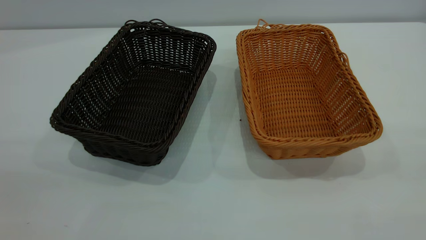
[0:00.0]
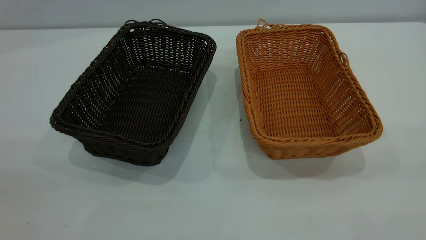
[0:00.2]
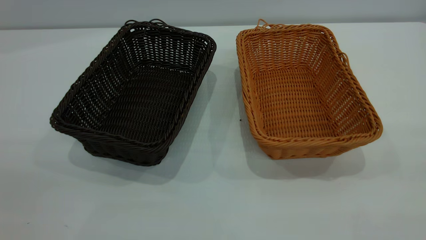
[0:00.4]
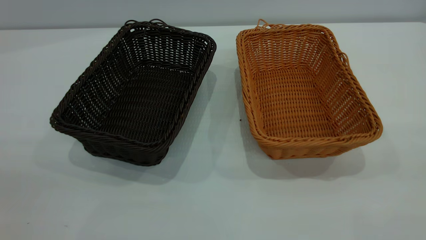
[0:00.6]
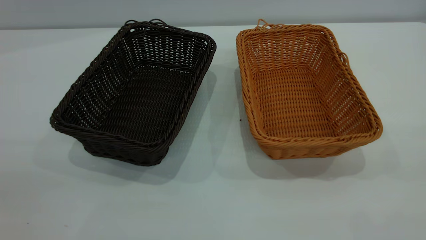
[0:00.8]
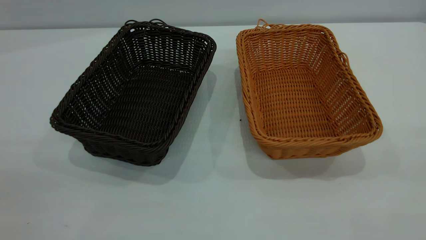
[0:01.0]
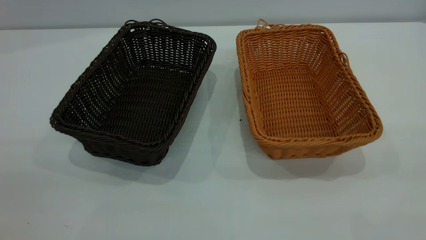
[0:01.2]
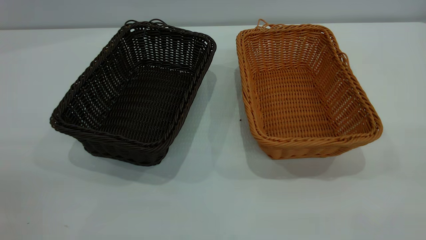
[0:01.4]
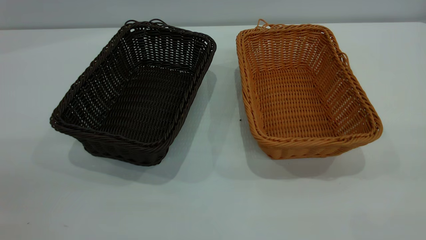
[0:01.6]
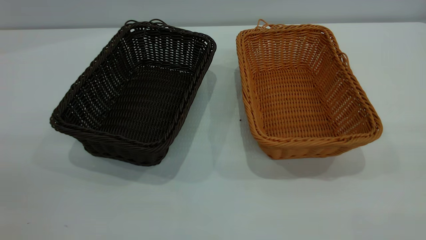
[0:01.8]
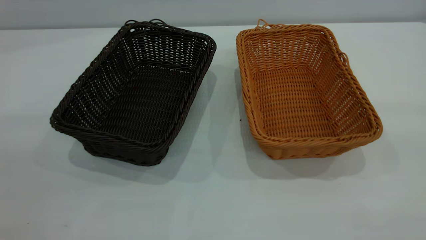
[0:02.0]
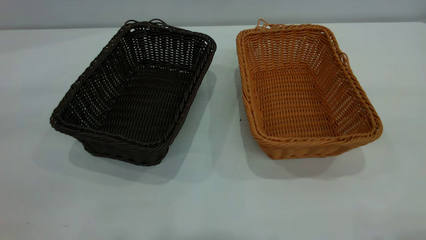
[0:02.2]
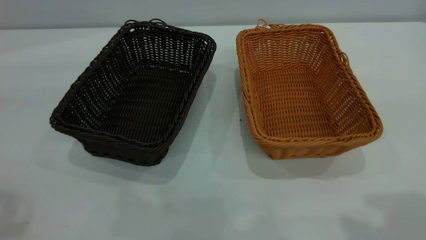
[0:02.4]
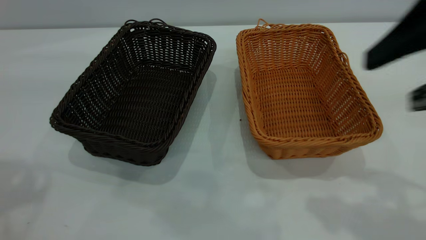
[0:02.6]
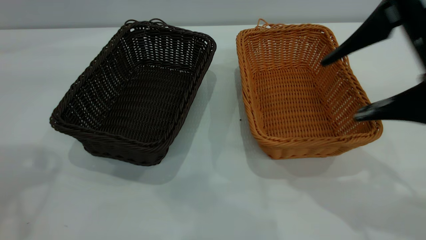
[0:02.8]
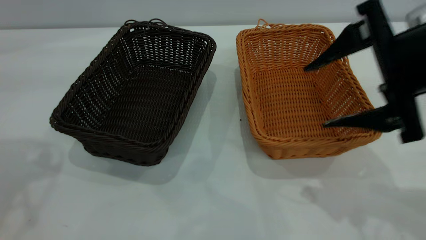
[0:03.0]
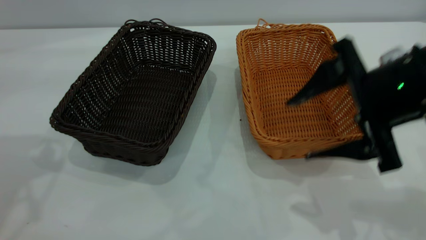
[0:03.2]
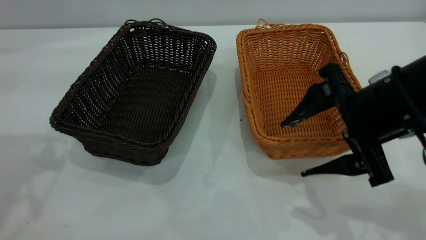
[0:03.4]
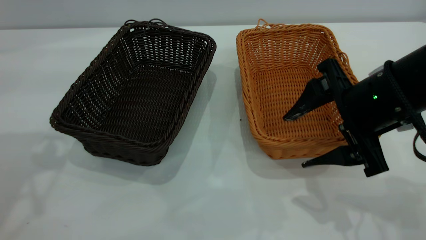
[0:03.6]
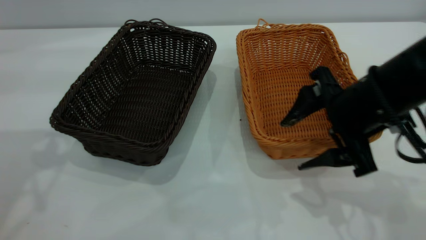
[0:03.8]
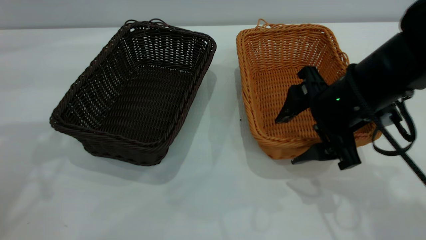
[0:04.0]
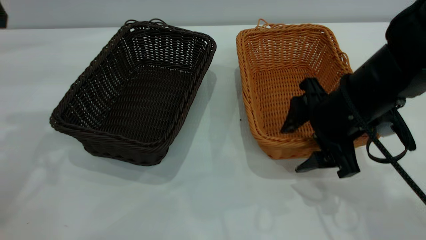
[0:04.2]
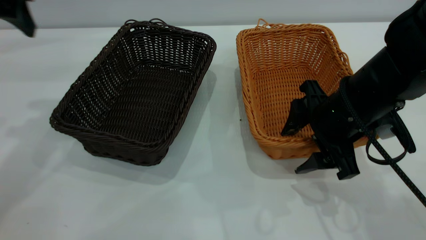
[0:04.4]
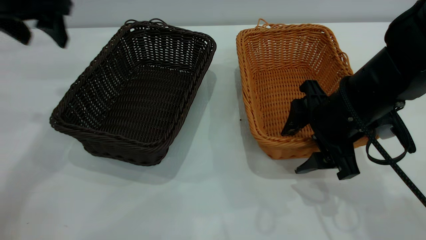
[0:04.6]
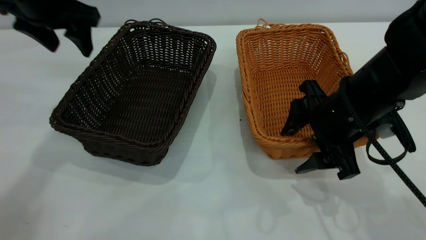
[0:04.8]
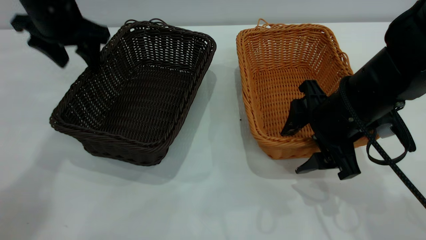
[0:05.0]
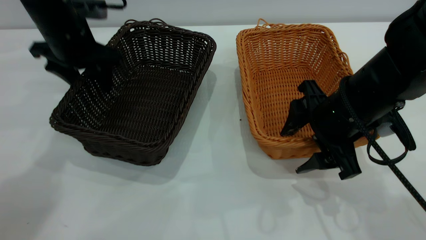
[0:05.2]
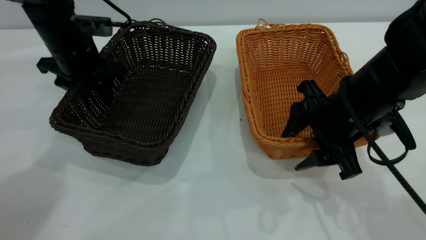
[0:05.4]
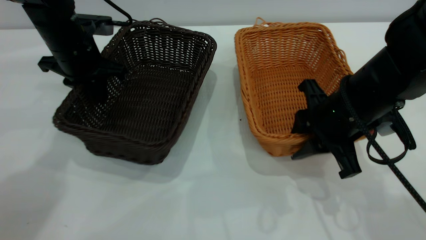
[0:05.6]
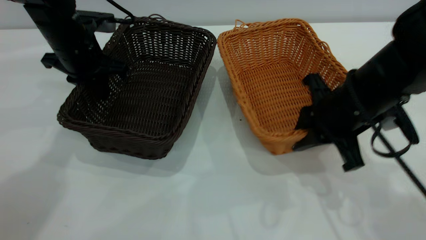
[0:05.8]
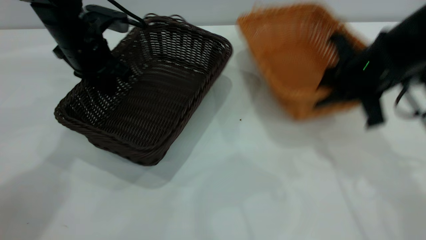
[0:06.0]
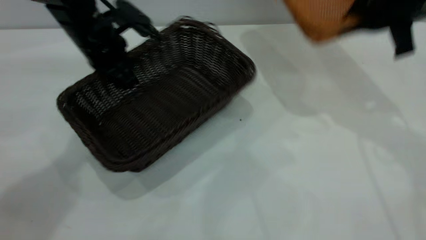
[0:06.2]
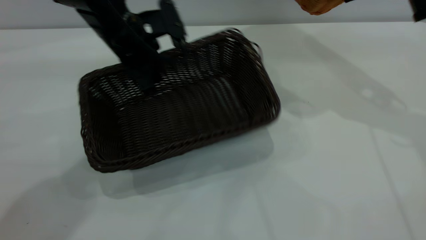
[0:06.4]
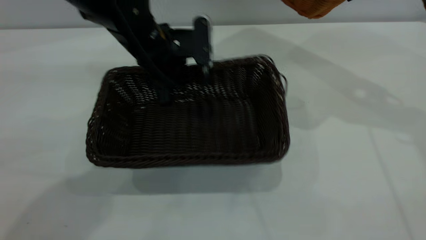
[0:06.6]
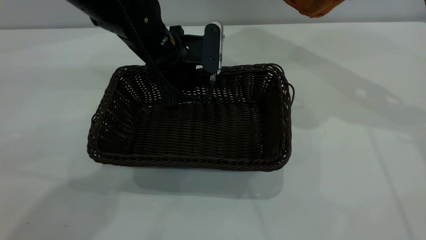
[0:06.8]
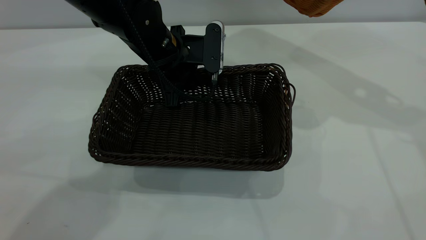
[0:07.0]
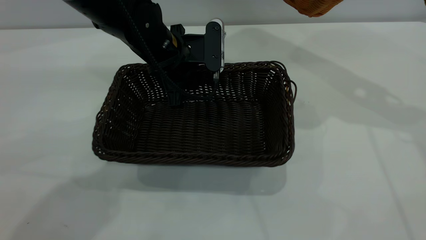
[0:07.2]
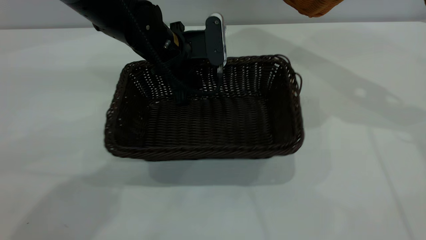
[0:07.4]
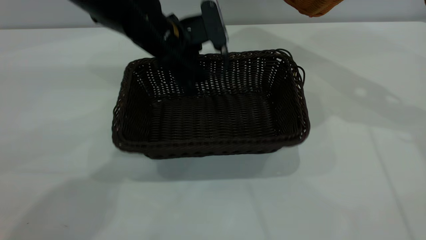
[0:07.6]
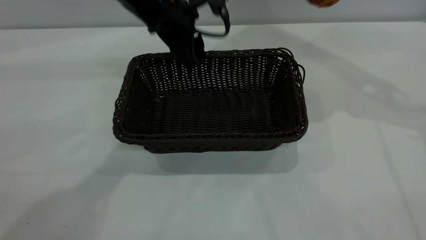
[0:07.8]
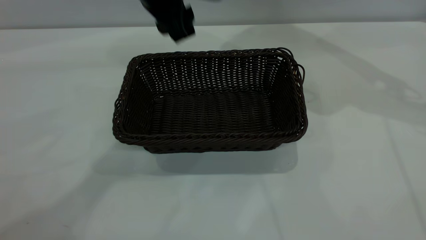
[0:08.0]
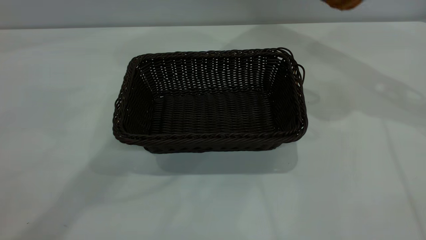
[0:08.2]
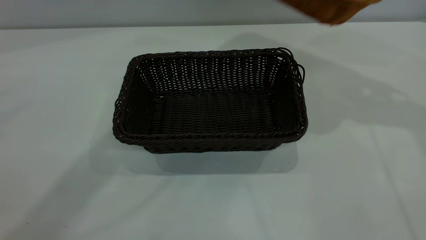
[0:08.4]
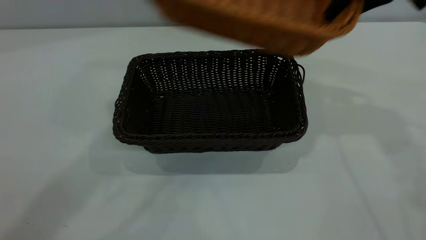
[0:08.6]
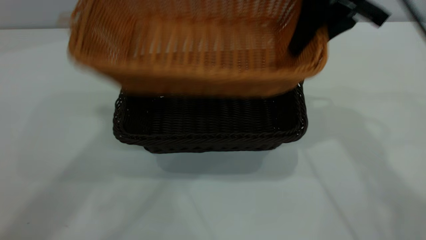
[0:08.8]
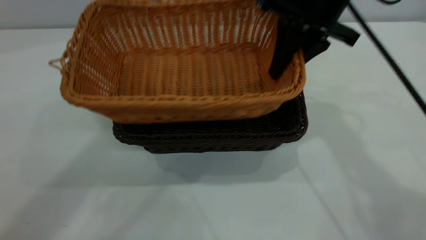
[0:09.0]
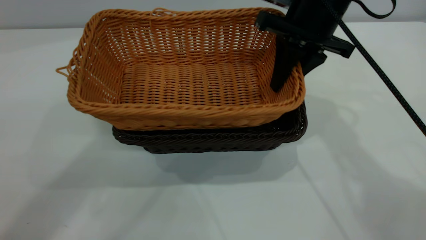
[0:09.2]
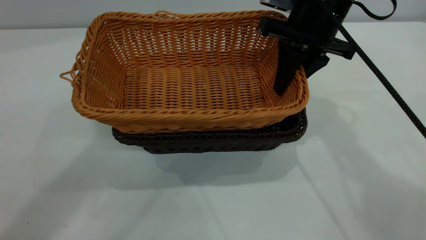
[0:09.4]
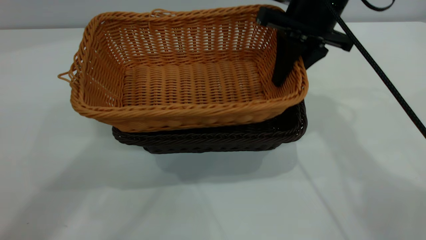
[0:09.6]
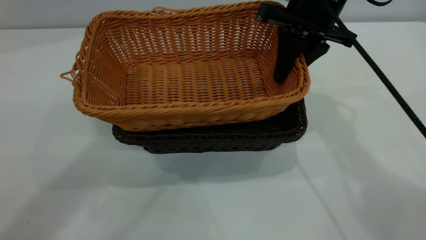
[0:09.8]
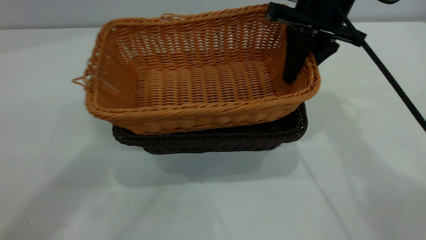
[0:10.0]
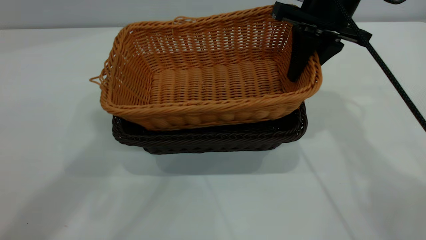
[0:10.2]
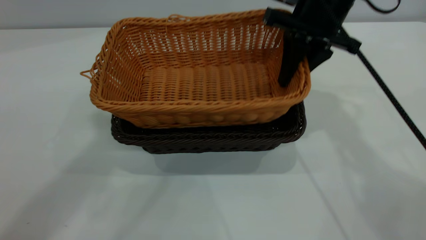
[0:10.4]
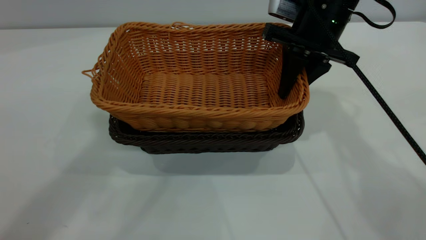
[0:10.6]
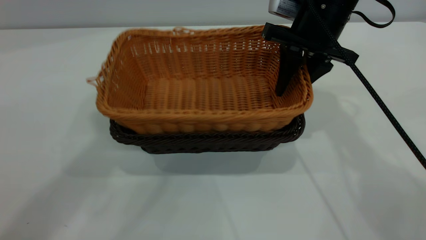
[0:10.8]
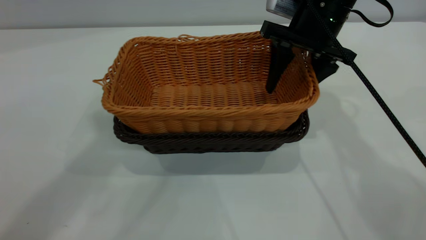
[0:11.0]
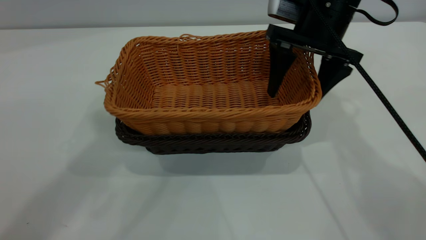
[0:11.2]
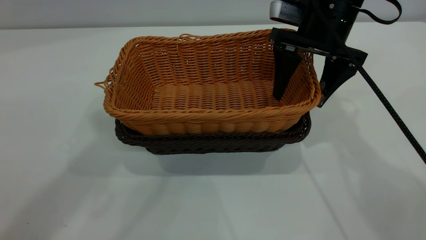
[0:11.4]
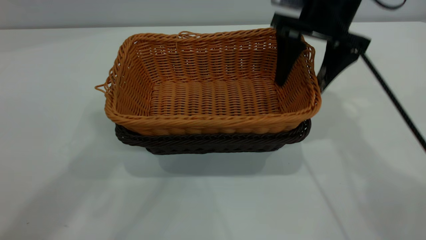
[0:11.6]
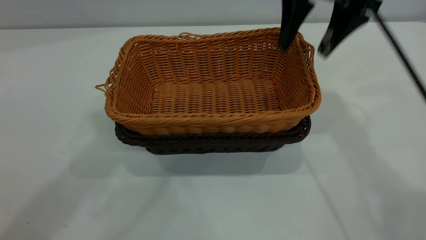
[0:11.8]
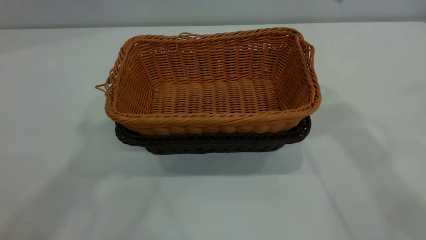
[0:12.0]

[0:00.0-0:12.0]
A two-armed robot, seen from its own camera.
Task of the whole recording: the left gripper grasp the black basket and place it in the center of the table, the right gripper grasp the brown basket and place it inside the black one.
Step, 0:00.0 to 0:06.0: Pick up the light basket with the right gripper.
Step, 0:06.2 to 0:07.8: Move the dark basket to the center of view.
Step, 0:08.2 to 0:11.8: Place the light basket on the dark basket.
0:00.0 to 0:01.6: Both grippers stay put.
0:01.6 to 0:03.0: The right gripper travels forward and downward by some 30 cm.
0:03.0 to 0:04.4: The right gripper moves downward, about 10 cm, while the left gripper heads forward and downward, covering some 10 cm.
0:04.4 to 0:06.0: The right gripper shifts about 10 cm to the right, upward and forward, and closes. Meanwhile the left gripper shifts approximately 15 cm downward, to the right and forward, and closes its fingers.
0:06.0 to 0:07.6: The right gripper heads upward, forward and to the right, covering approximately 15 cm; the left gripper travels to the right by about 15 cm, and opens up.
0:07.6 to 0:09.0: The right gripper moves to the left and downward, roughly 15 cm, while the left gripper moves upward, about 35 cm.
0:09.0 to 0:10.4: The grippers stay close to where they were, moving slightly.
0:10.4 to 0:12.0: The right gripper moves upward, approximately 20 cm, and opens its fingers.
